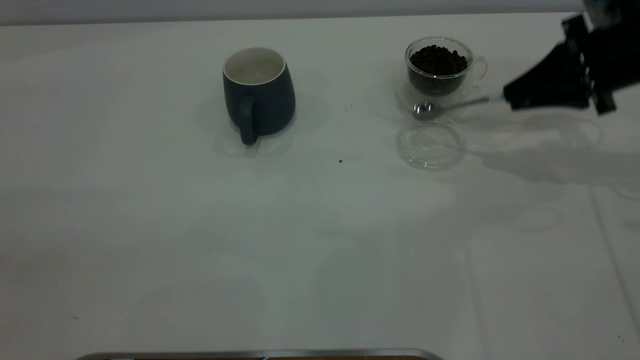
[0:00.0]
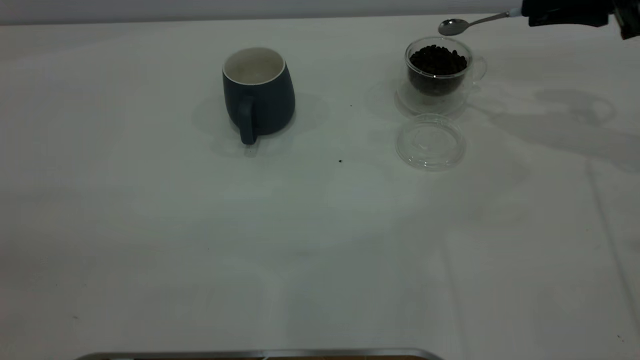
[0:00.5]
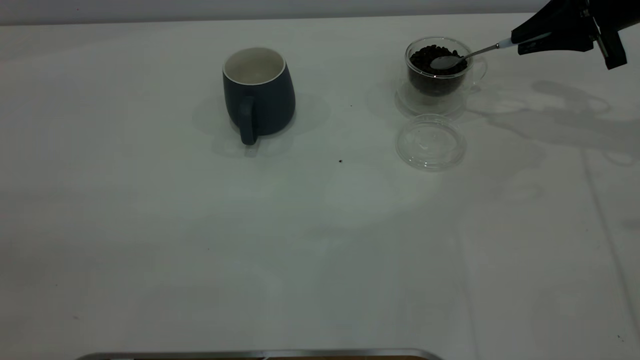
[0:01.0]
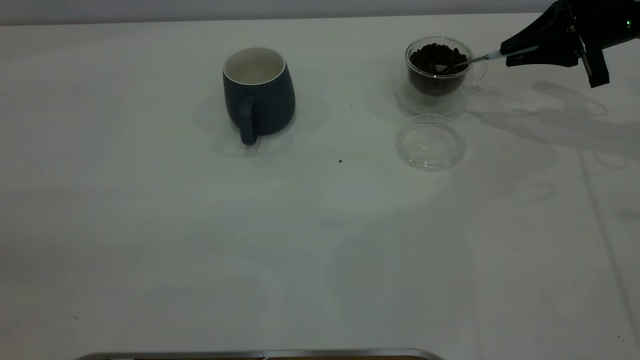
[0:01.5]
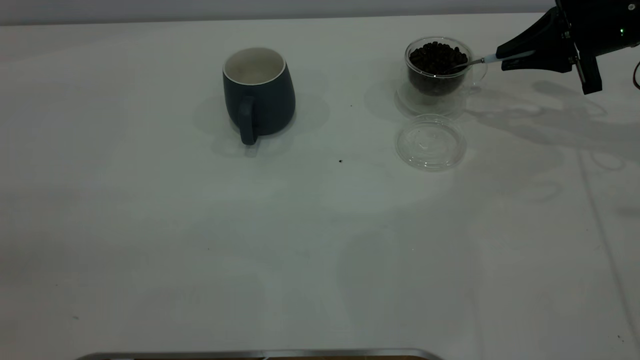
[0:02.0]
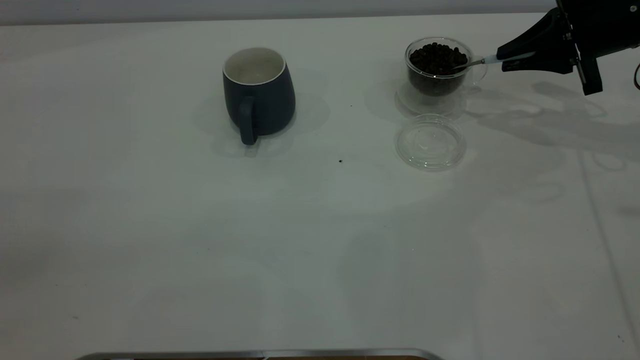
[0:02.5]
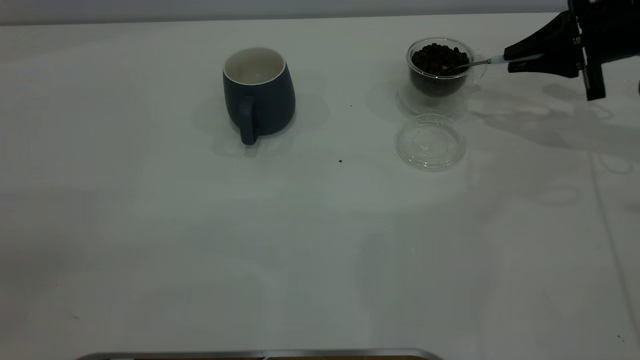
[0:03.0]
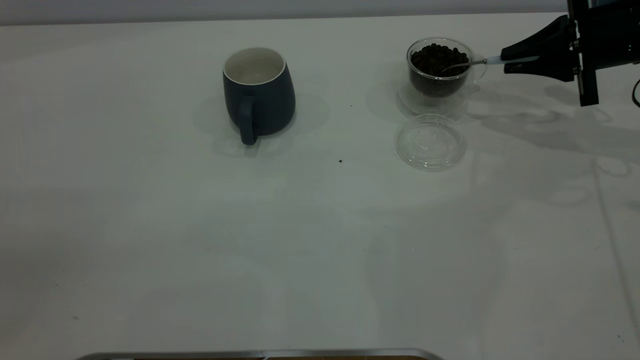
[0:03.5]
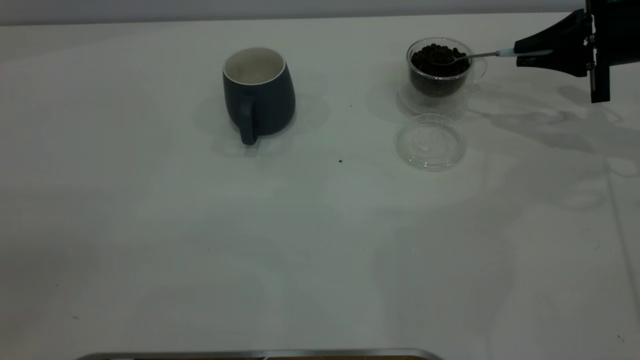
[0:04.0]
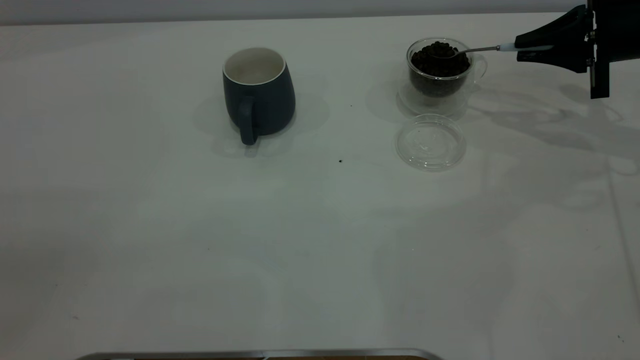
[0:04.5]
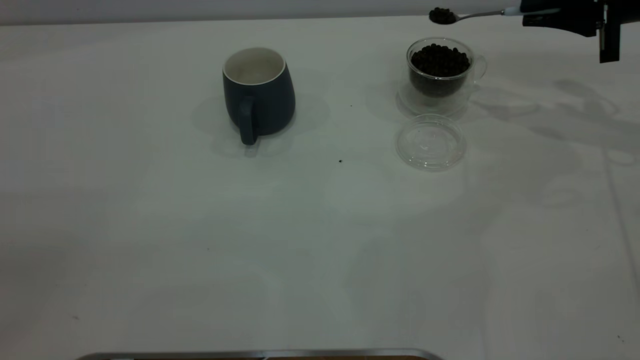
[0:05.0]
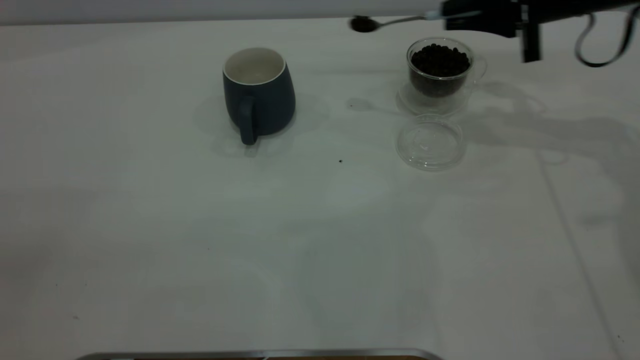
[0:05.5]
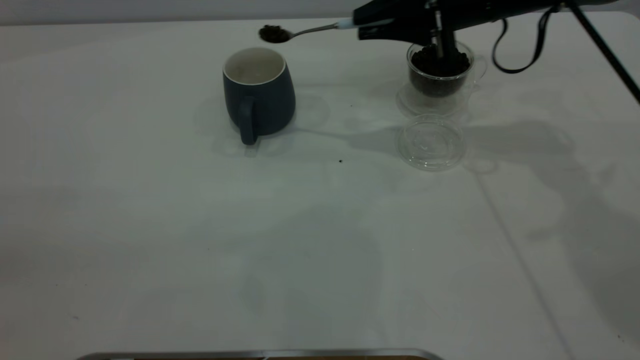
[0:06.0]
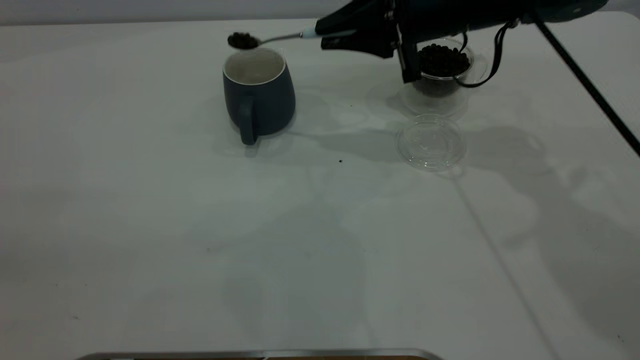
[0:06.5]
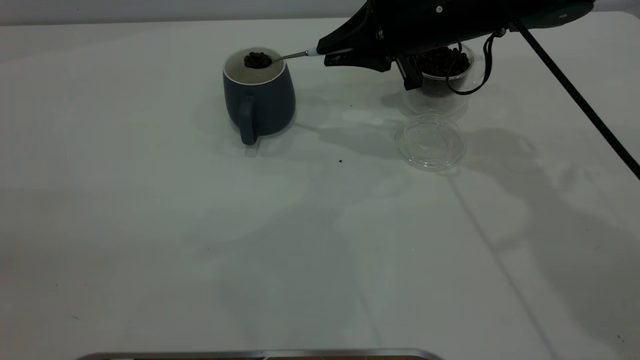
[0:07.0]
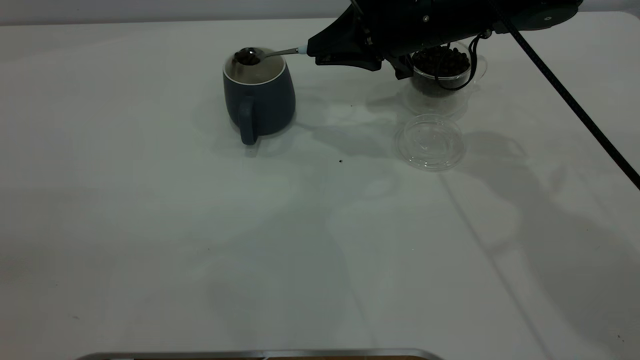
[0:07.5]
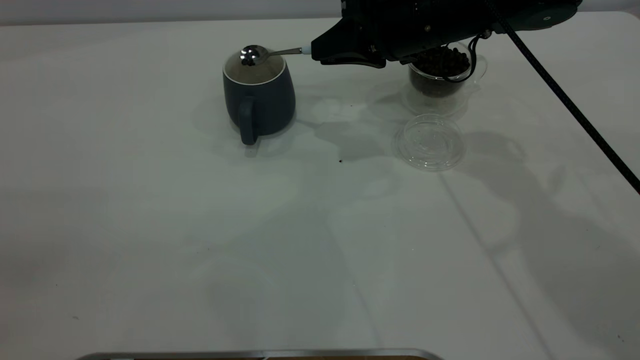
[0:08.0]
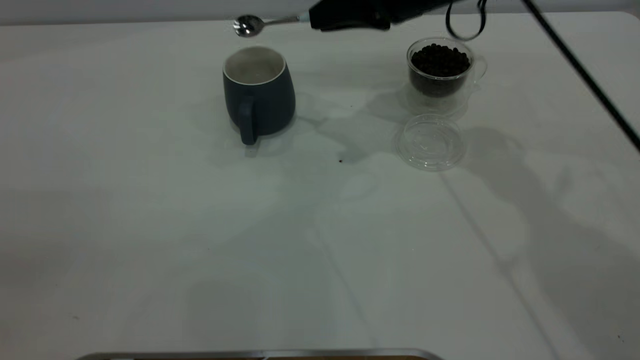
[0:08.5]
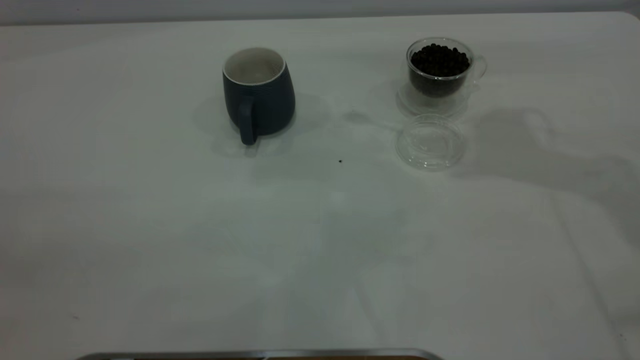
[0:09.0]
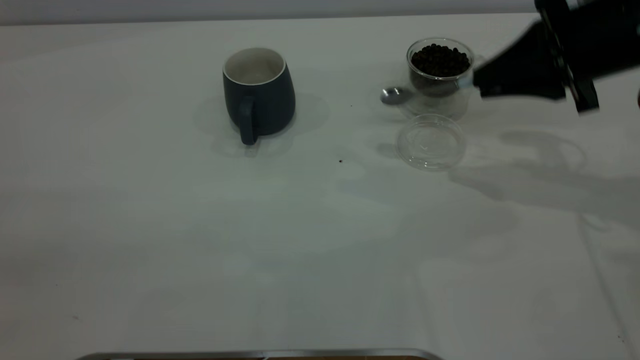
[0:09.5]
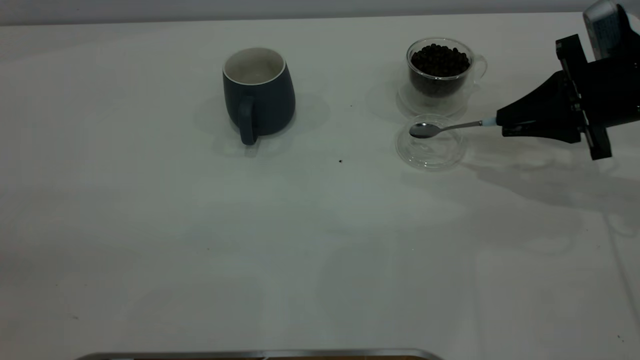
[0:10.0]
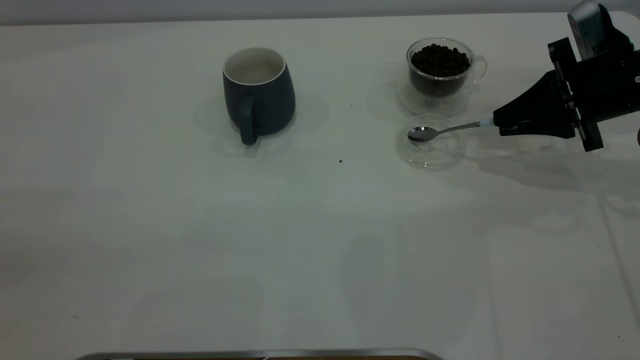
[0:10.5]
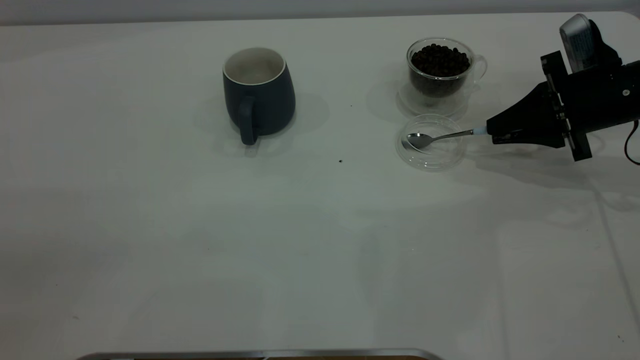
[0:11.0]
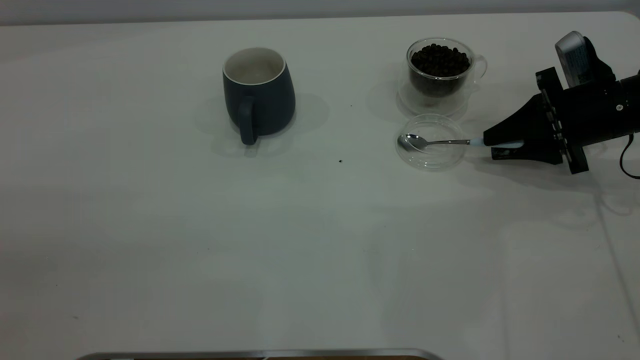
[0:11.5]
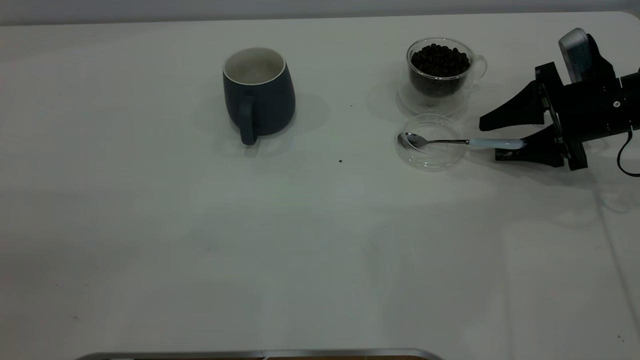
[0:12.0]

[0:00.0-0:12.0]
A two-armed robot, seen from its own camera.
Task of the whole recording: the left gripper place the grey cup in the center of the table, the right gripper take the blue spoon from the cup lid and scoop out the coffee beans from the coffee cup and put them into the grey cup, the right gripper put the spoon back into the cup lid.
Step, 0:00.5 to 0:08.0: Scoop a spoonful of beans into the cup.
0:00.0 to 0:02.0: The right gripper goes about 5 cm forward.
0:02.0 to 0:04.0: The grippers stay close to where they were, moving slightly.
0:04.0 to 0:06.0: The right gripper heads to the left, covering approximately 20 cm.
0:06.0 to 0:08.0: The right gripper is displaced to the left by some 5 cm.
0:08.0 to 0:10.0: The right gripper shifts some 20 cm to the right.
0:10.0 to 0:12.0: The right gripper moves approximately 5 cm, and opens up.

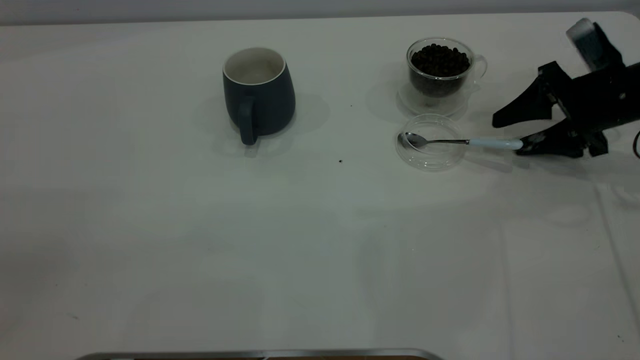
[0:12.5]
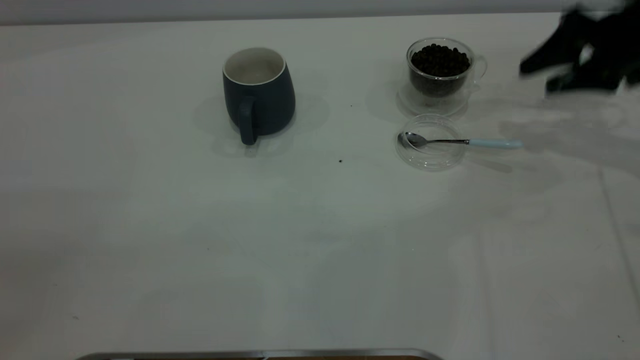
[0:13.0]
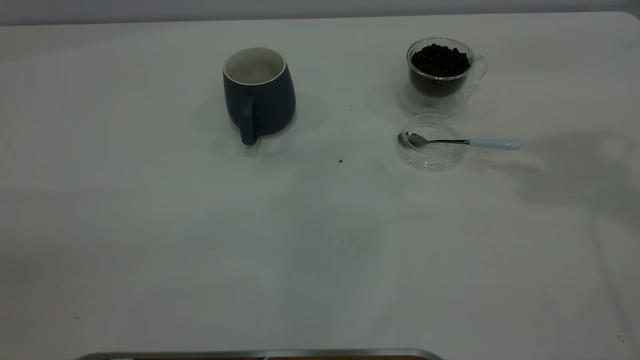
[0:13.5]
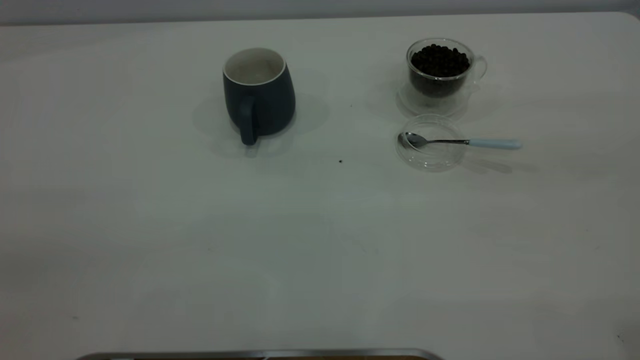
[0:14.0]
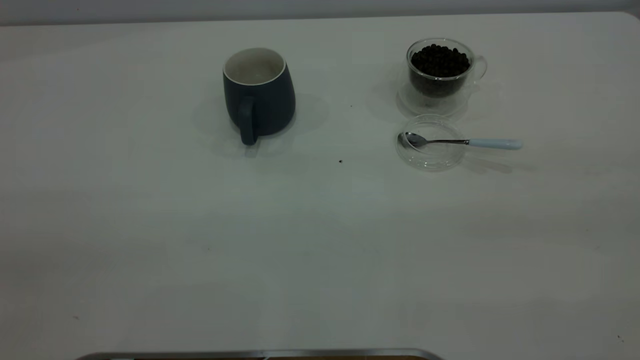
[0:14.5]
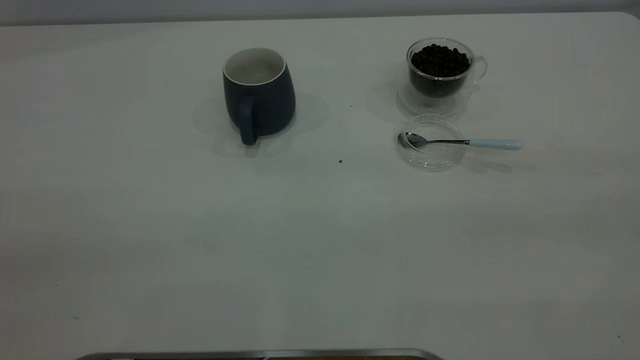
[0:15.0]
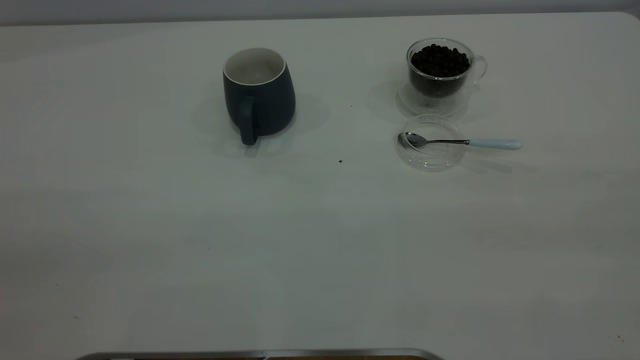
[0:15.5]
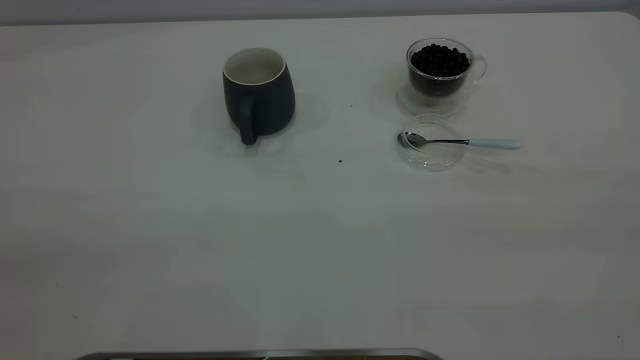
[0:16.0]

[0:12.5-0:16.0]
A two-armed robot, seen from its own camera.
Task of the whole recording: the left gripper place the grey cup in the center of the table, the right gripper take the blue spoon from the cup lid and scoop out the coffee beans from the coffee cup and put them into the grey cup, the right gripper put the spoon back into the cup lid.
0:12.5 to 0:14.5: The right gripper travels backward and upward by roughly 50 cm.
